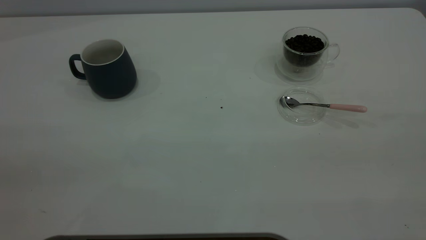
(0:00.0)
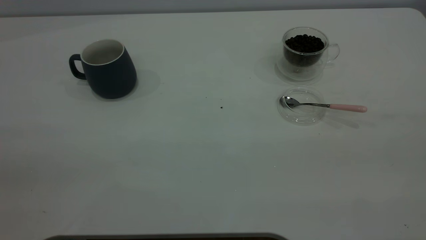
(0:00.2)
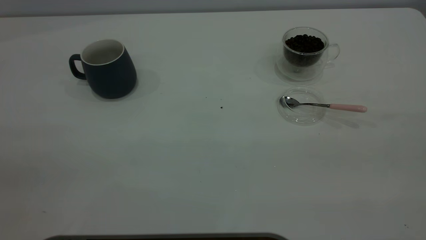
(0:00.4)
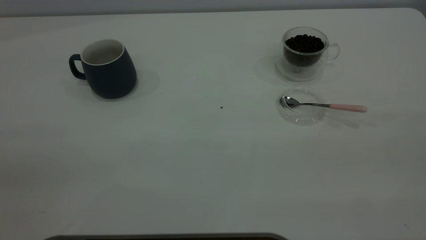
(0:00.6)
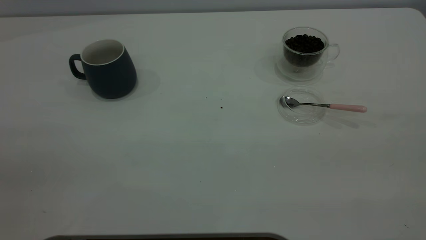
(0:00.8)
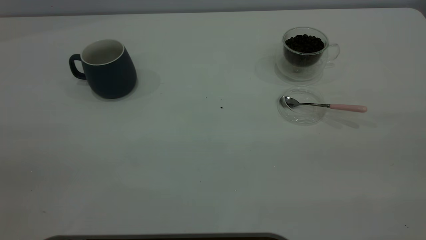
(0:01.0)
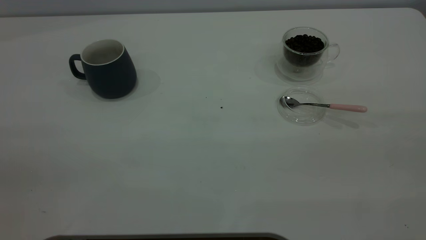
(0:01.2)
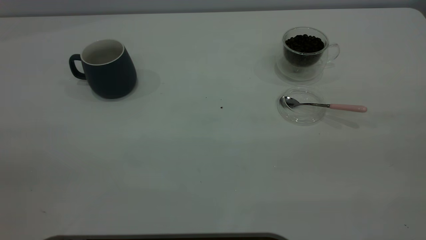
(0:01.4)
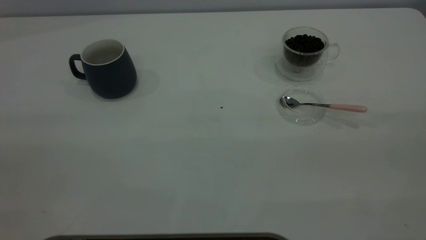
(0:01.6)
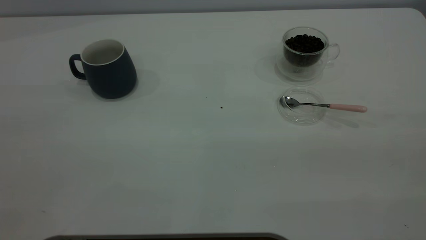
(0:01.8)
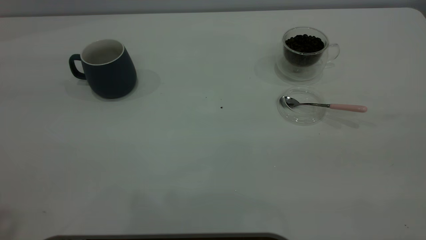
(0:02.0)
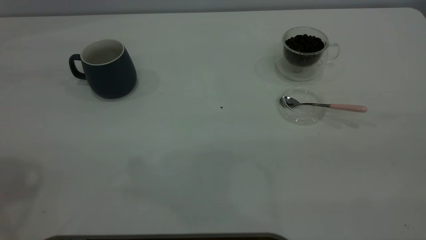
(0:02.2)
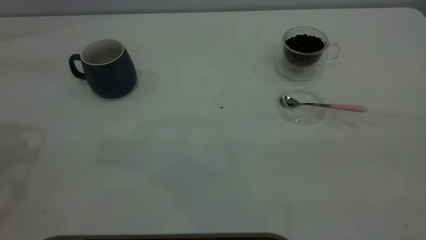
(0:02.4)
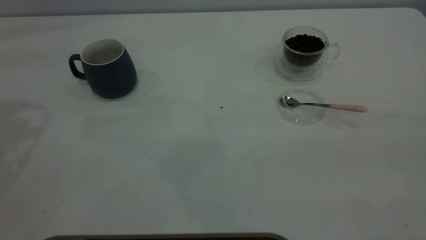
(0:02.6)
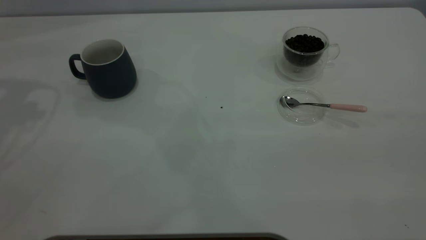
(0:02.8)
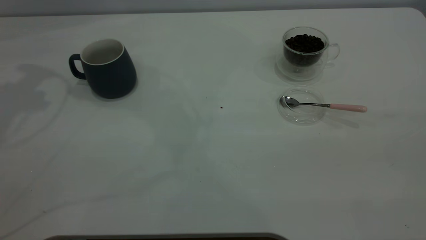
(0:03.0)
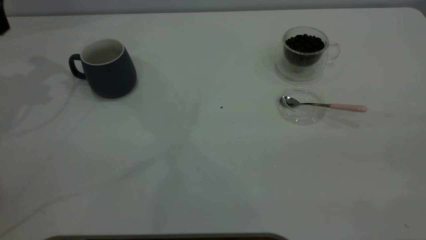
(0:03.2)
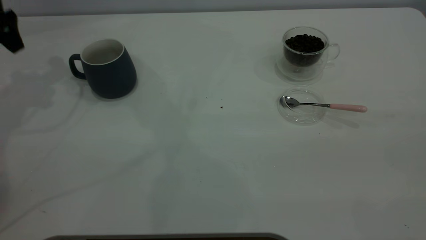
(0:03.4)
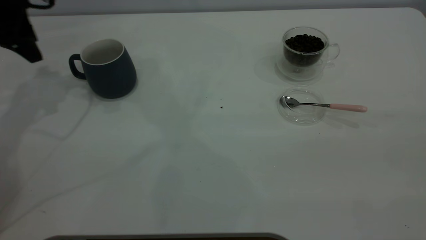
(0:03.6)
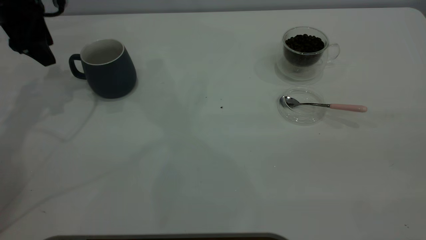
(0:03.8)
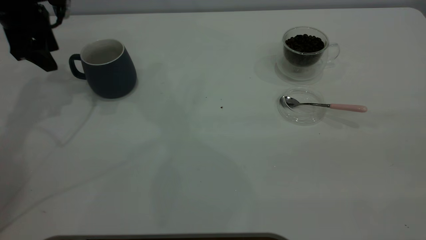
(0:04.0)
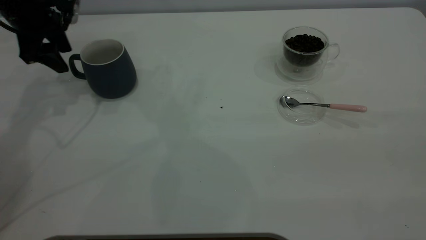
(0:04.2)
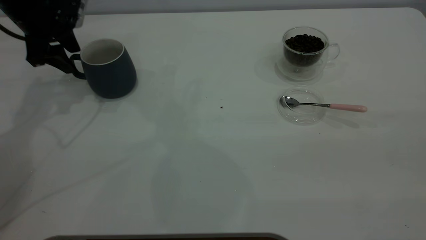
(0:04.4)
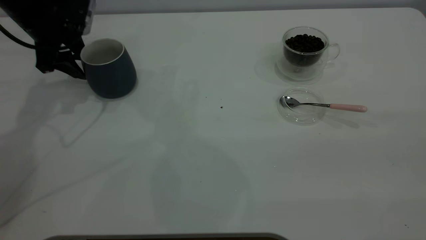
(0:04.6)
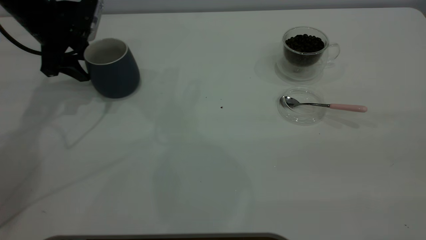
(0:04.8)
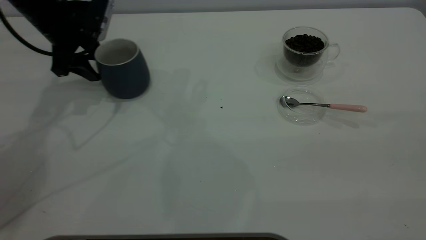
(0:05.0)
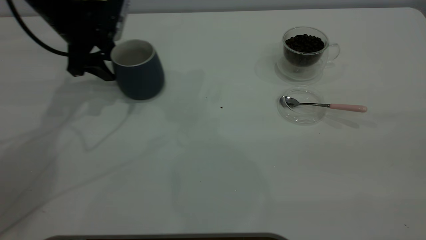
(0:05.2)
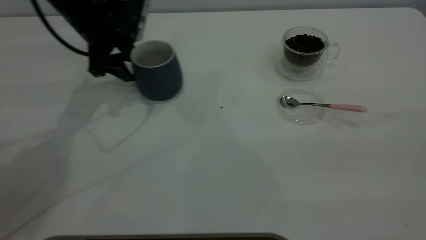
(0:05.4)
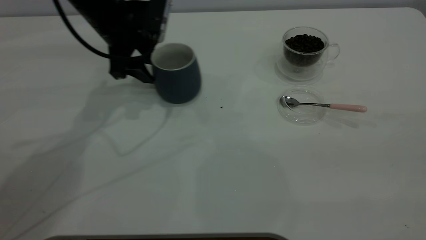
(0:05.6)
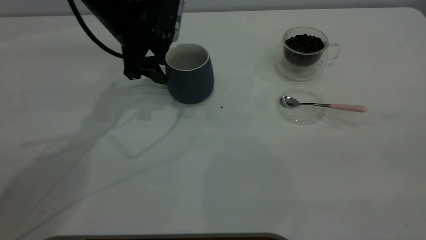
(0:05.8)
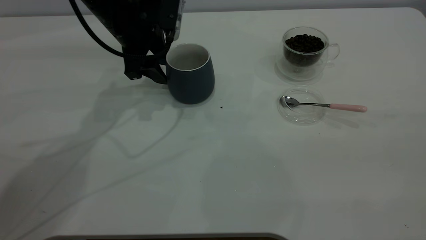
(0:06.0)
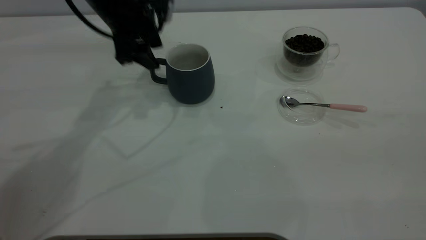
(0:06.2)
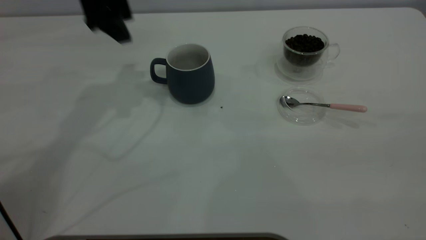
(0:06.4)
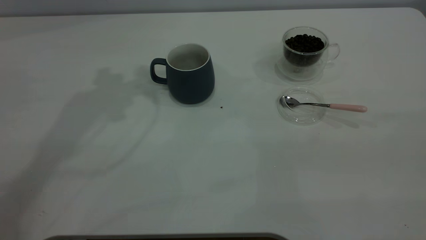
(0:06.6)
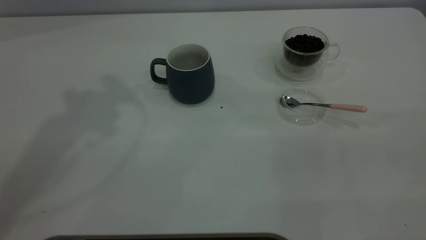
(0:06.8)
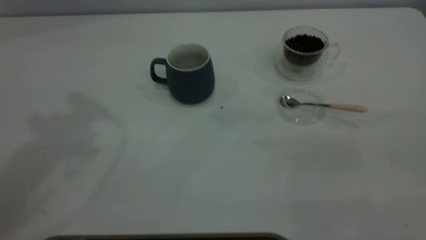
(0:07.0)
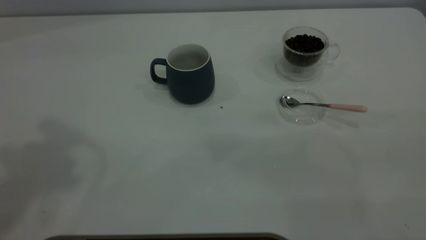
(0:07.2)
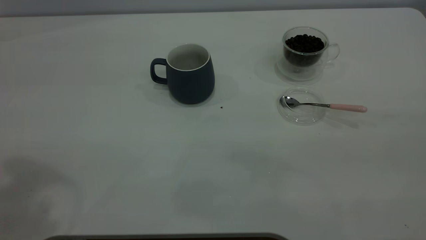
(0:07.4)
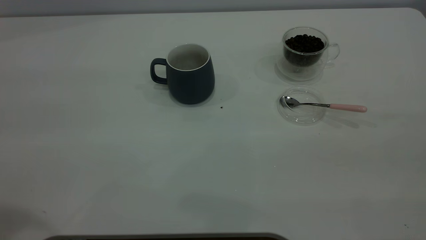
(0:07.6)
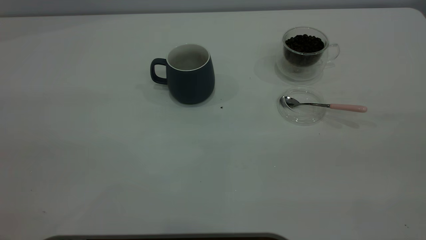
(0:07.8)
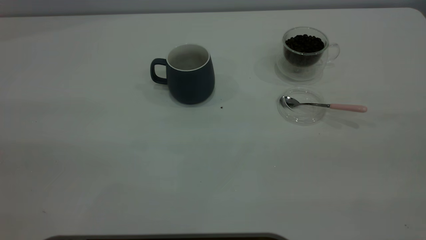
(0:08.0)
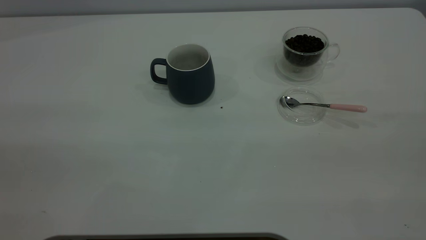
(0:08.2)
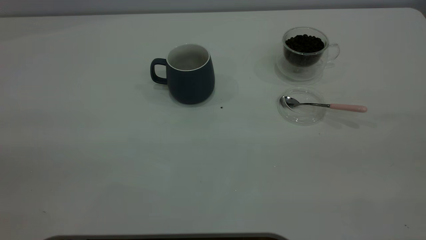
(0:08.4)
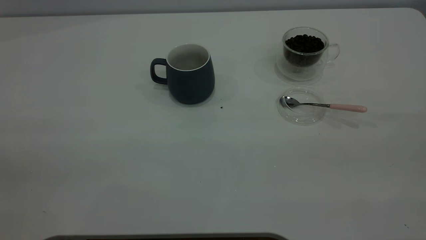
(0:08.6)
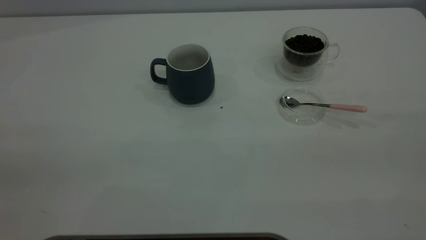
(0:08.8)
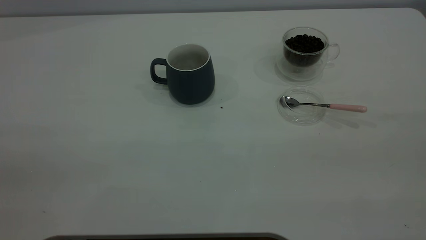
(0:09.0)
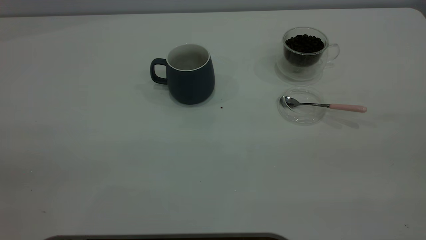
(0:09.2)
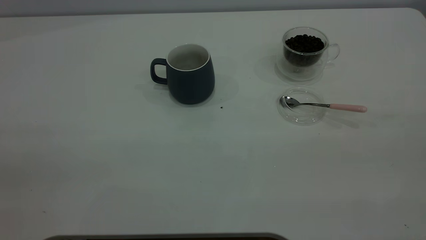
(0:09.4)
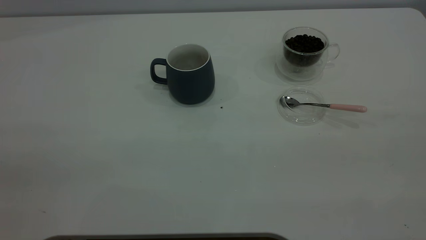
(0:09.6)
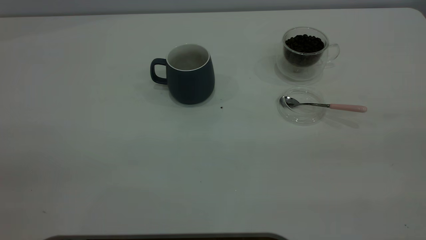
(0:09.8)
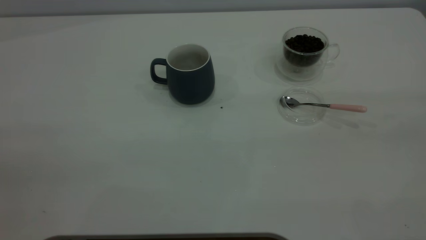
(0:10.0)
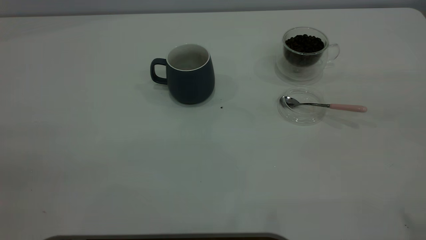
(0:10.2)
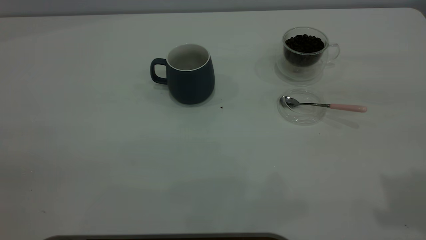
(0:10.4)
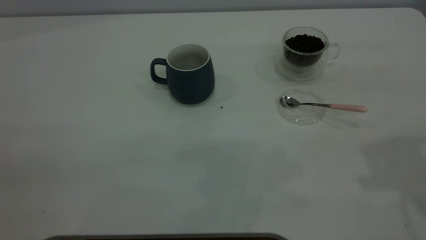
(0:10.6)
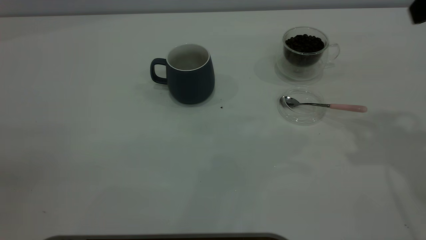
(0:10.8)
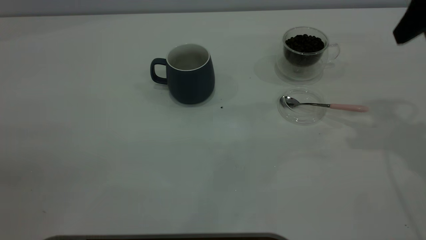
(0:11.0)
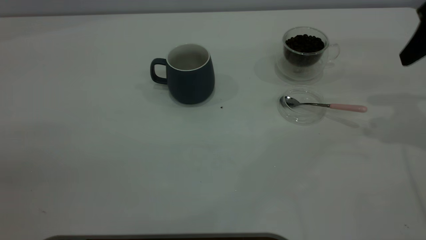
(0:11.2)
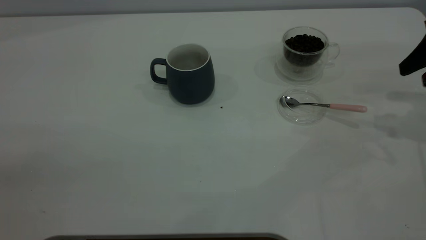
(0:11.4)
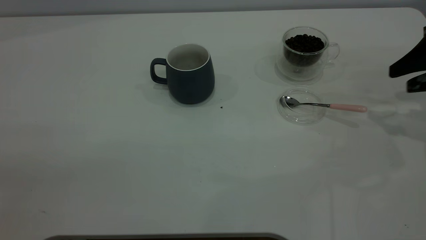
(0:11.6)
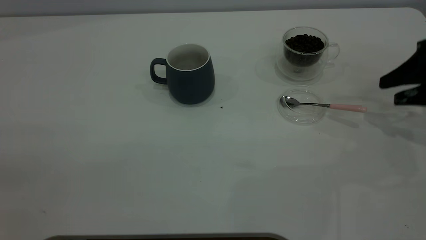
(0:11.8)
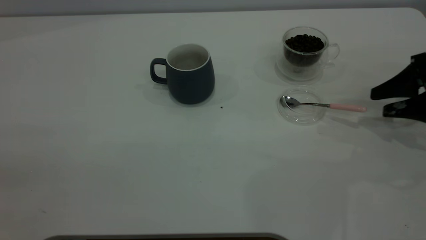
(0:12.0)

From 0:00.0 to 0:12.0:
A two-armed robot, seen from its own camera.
Task of the whole recording: the left gripper place the grey cup in the center of the table, the right gripper take the pink spoon from the cup lid and scoop out the coffee beans from the coffee cup and put them into the grey cup, the right gripper put the spoon back into the cup lid.
Step, from 0:00.0 to 0:06.2: Move the cup to the center of view.
From 0:03.0 to 0:04.4: The left gripper moves downward and to the right, some 15 cm.
From 0:04.4 to 0:06.0: The left gripper travels to the right by approximately 15 cm.
From 0:06.0 to 0:07.6: The left gripper moves backward and upward, roughly 40 cm.
From 0:10.4 to 0:12.0: The right gripper goes about 30 cm downward and forward.

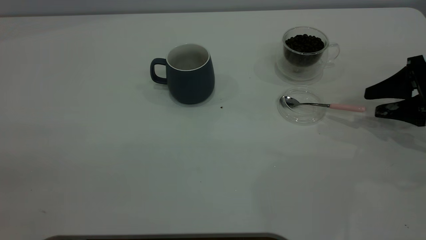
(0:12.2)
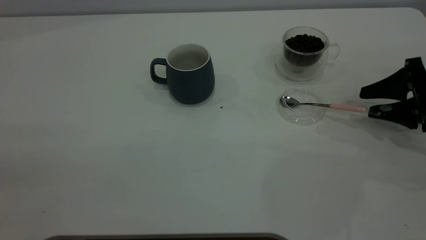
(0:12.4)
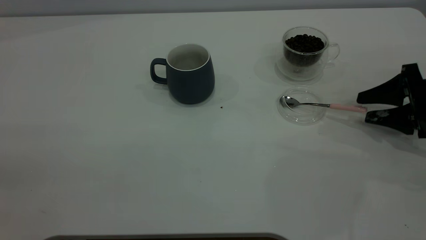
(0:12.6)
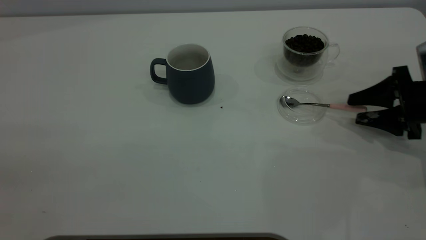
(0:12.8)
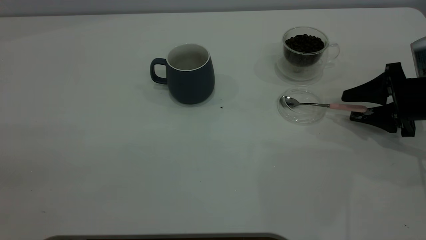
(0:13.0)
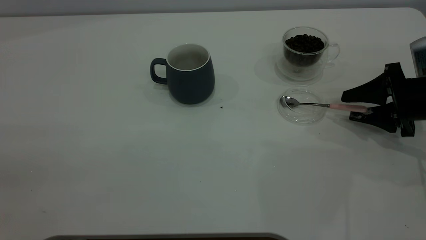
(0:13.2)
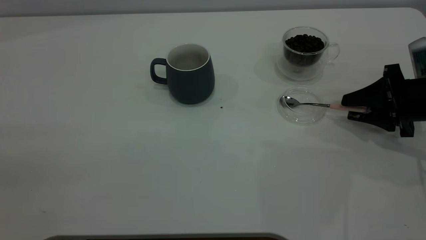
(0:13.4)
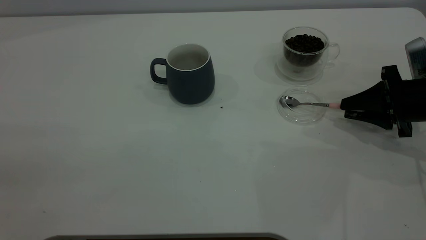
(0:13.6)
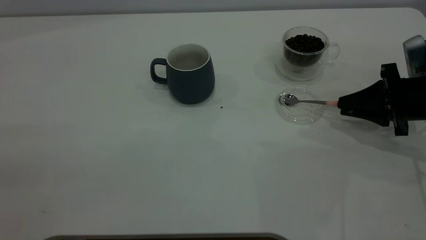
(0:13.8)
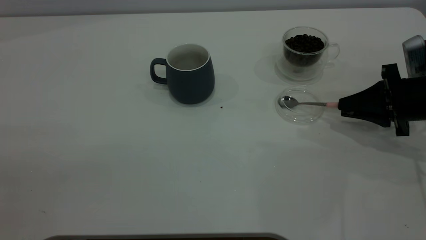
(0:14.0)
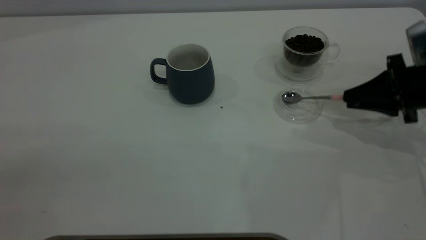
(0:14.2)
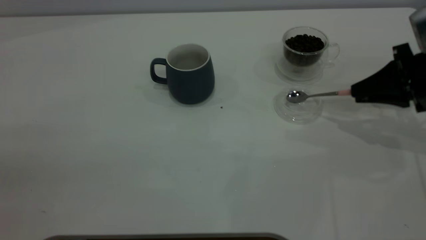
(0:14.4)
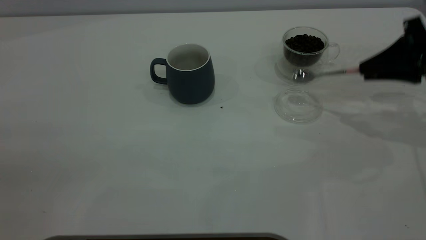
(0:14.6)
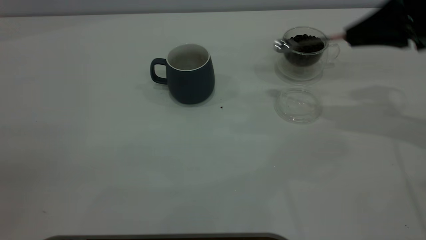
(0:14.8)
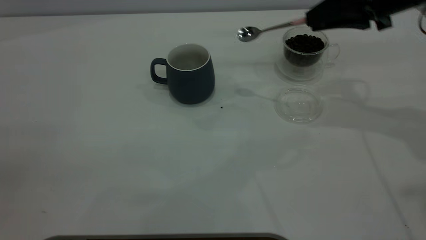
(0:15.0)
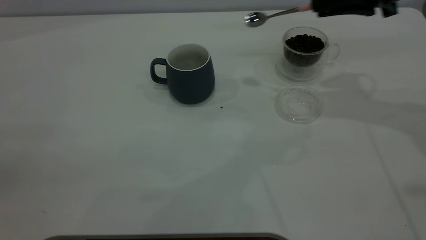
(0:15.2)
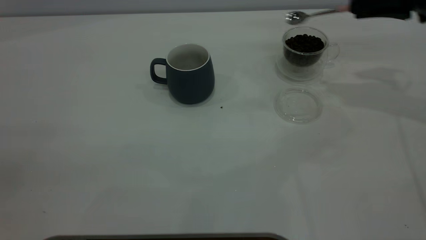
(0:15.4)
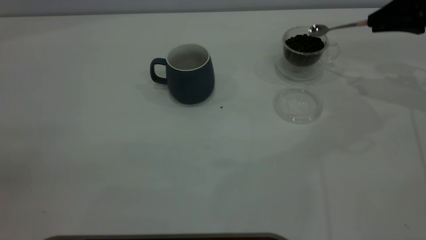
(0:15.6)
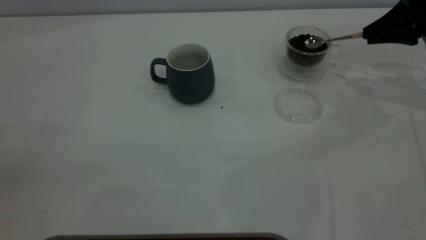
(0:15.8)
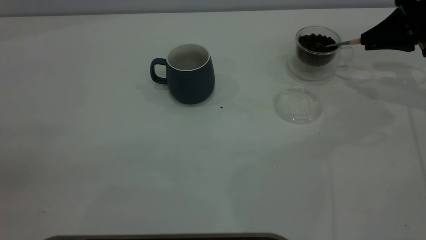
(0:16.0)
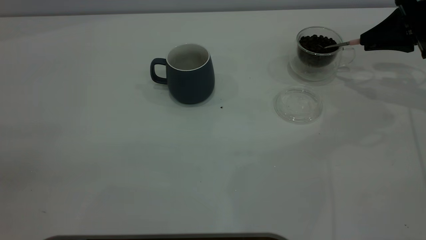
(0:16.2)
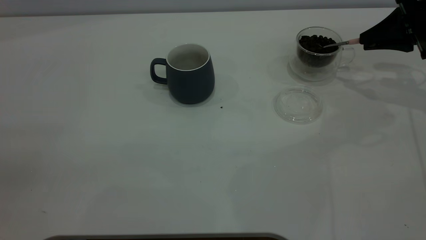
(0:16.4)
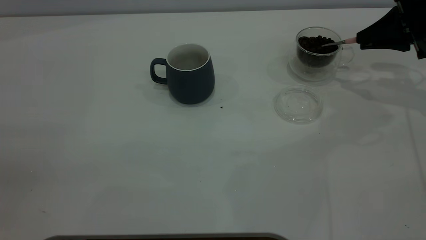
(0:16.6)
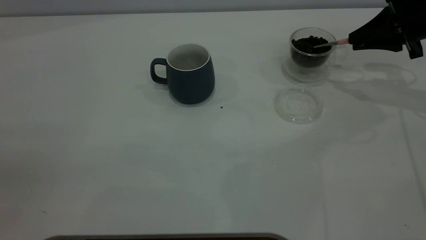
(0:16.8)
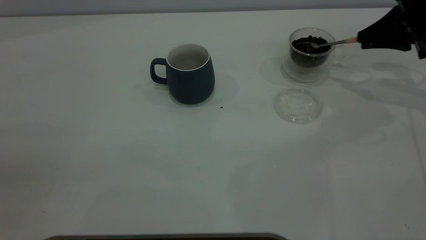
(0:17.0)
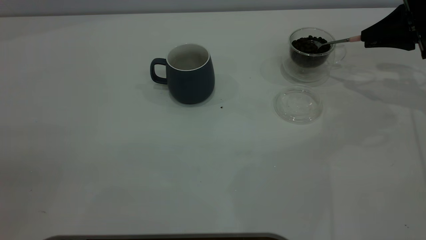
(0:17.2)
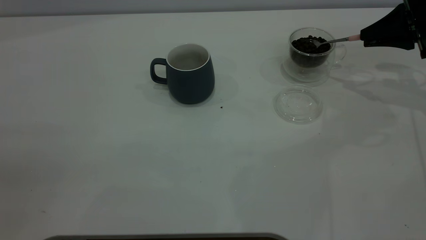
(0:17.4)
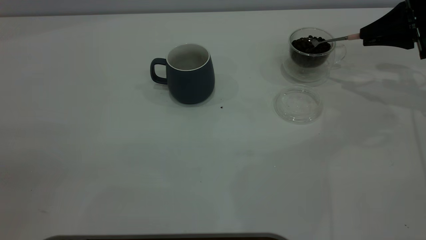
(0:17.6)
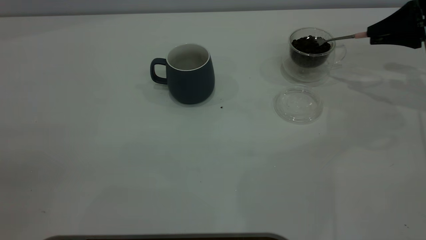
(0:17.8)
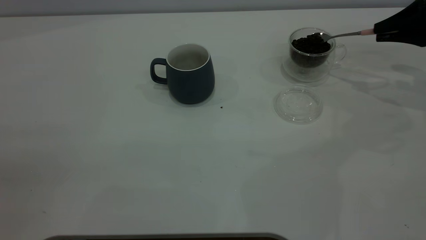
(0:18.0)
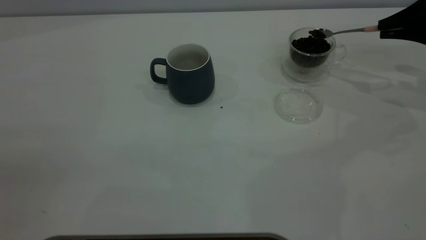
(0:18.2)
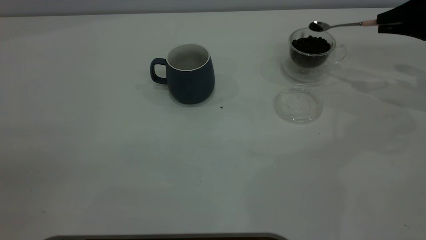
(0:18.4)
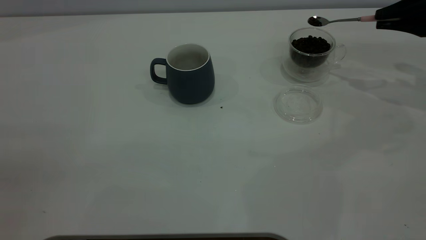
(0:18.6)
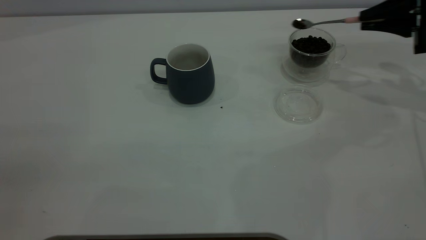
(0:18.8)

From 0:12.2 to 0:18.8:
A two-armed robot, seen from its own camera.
Task of the whole recording: the left gripper place the grey cup in the center of the table, the right gripper take the pink spoon from the cup lid and scoop out the coffee beans from the coffee cup and put them into the grey cup, the right gripper put the spoon back into the cup lid.
Step, from 0:12.2 to 0:14.6: Pick up the spoon.
From 0:12.2 to 0:13.8: The right gripper closes its fingers.
From 0:13.8 to 0:15.4: The right gripper is displaced upward and forward by some 15 cm.
From 0:15.4 to 0:17.2: The right gripper shifts about 5 cm downward.
From 0:17.2 to 0:18.8: There are only small adjustments of the grippers.
